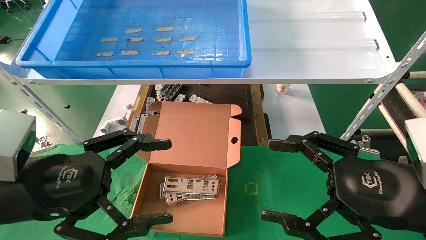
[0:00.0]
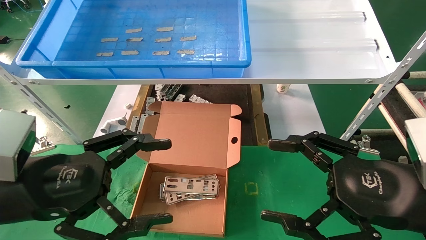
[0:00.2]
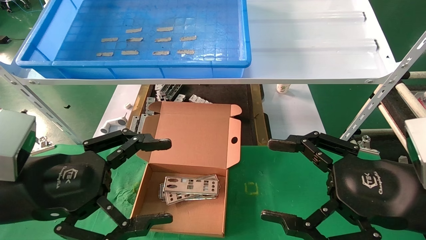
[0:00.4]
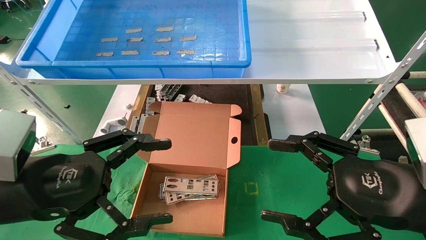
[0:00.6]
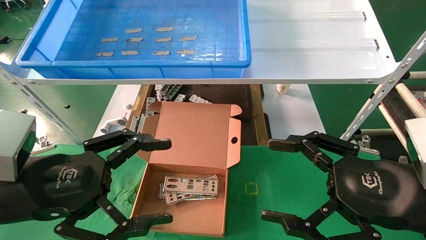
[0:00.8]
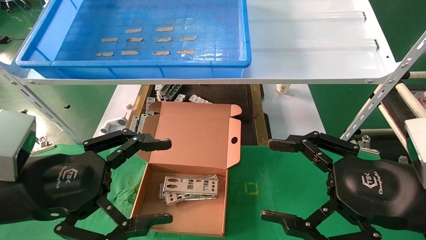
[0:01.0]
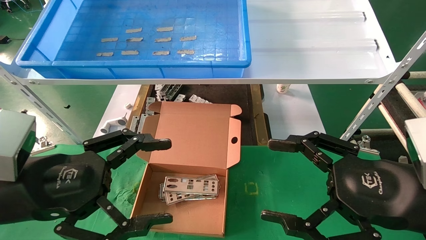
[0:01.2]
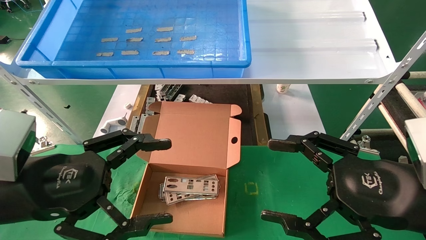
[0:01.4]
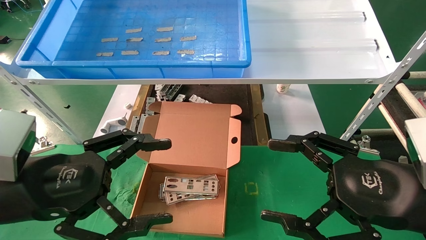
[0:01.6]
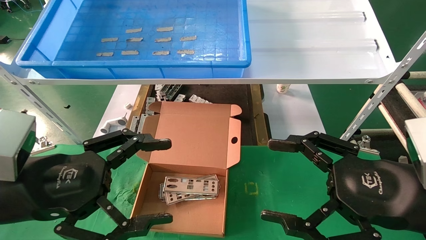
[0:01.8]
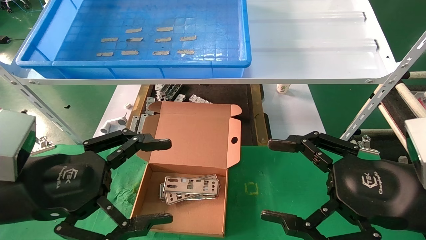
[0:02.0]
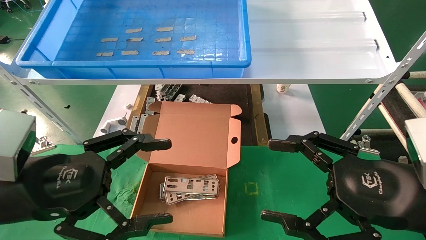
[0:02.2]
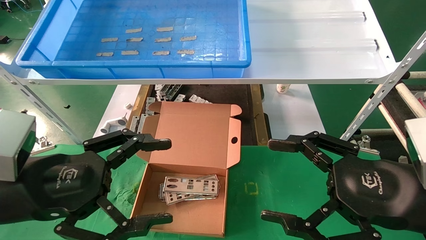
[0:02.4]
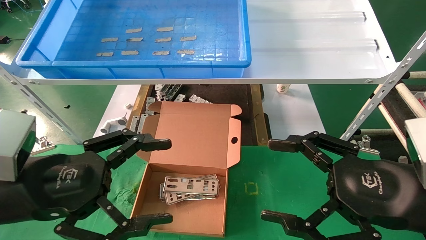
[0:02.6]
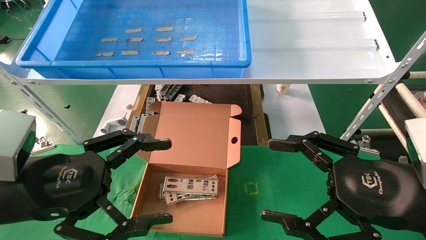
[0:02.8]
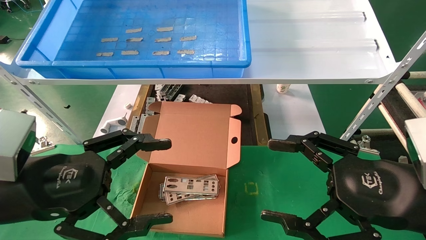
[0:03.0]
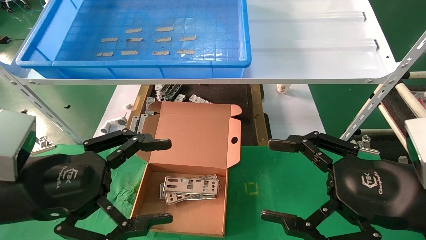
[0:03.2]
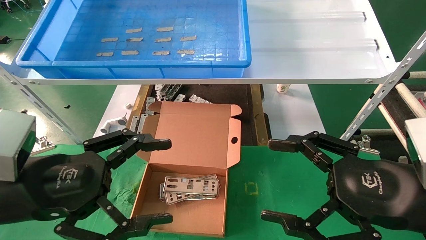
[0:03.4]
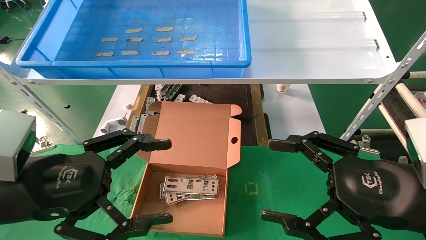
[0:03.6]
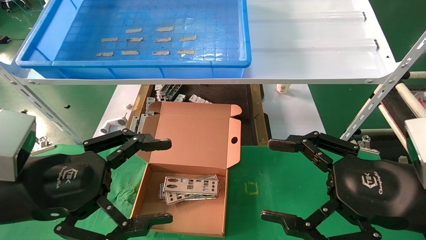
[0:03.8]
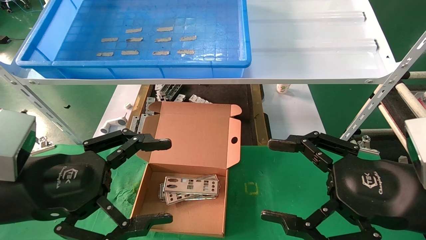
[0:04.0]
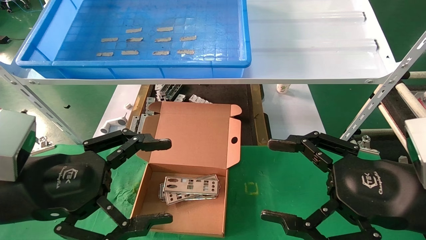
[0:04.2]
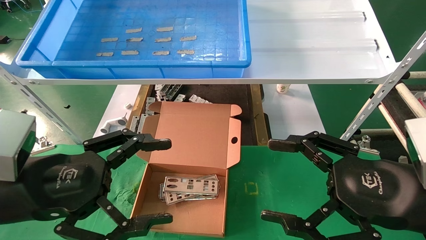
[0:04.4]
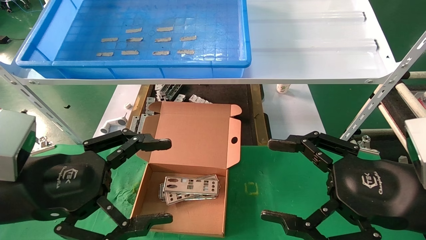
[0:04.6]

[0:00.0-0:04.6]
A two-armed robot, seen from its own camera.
Task of the whole recording: pick up the parts on the tray and put them in the cardboard box.
0:00.0 to 0:04.6: Both grippers stay about where they are.

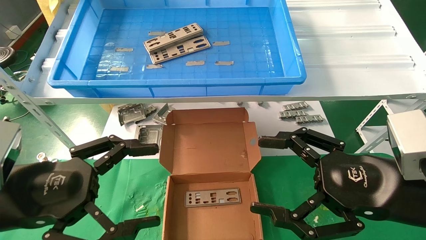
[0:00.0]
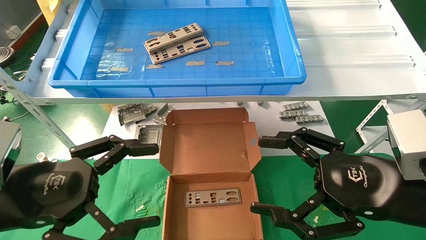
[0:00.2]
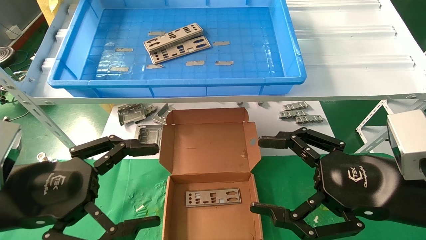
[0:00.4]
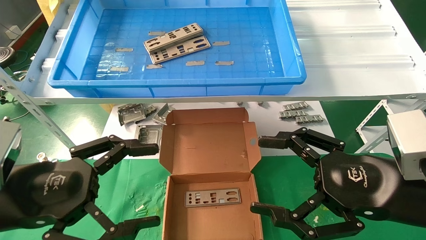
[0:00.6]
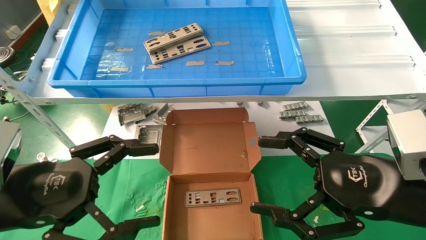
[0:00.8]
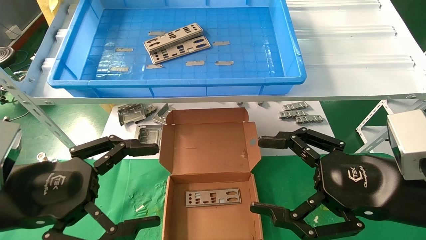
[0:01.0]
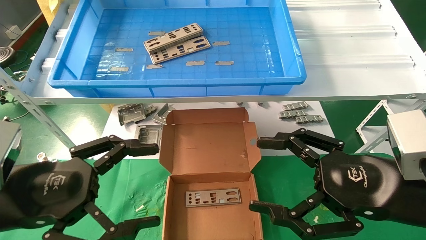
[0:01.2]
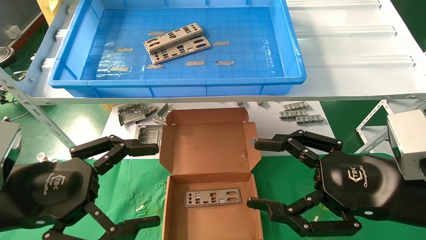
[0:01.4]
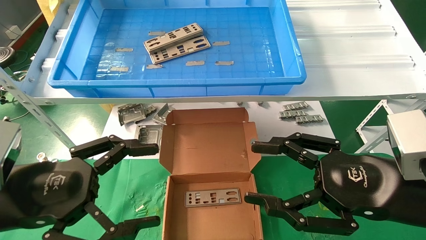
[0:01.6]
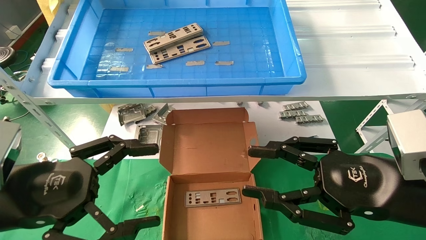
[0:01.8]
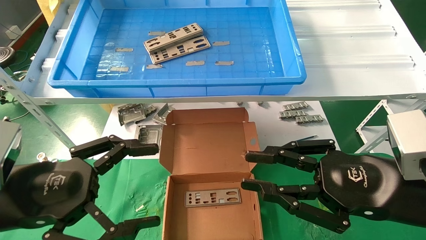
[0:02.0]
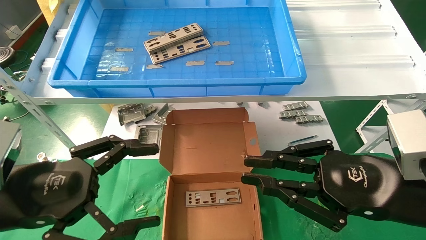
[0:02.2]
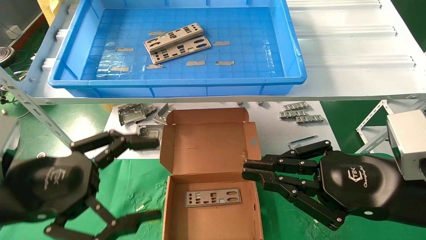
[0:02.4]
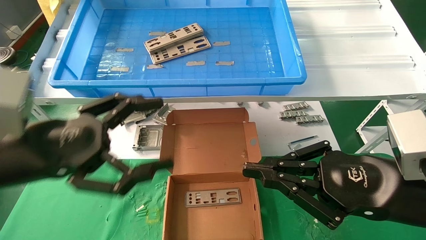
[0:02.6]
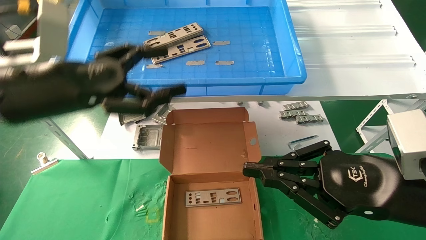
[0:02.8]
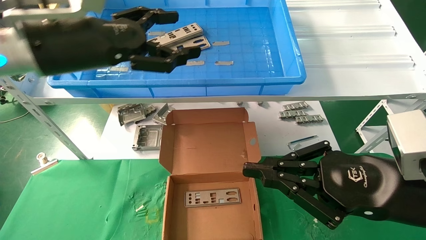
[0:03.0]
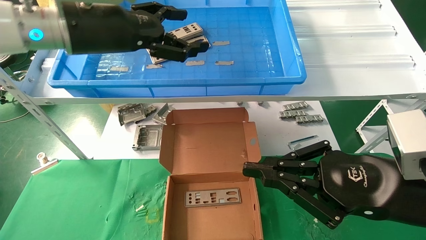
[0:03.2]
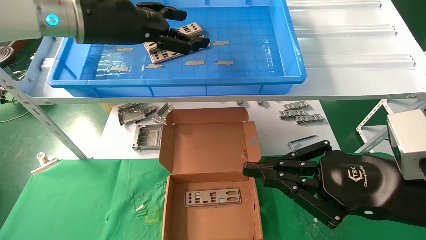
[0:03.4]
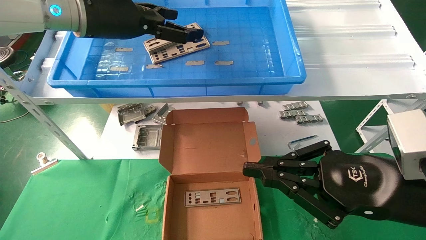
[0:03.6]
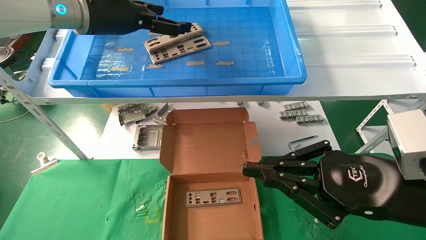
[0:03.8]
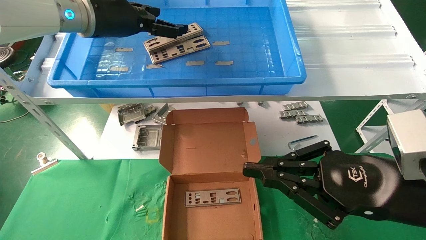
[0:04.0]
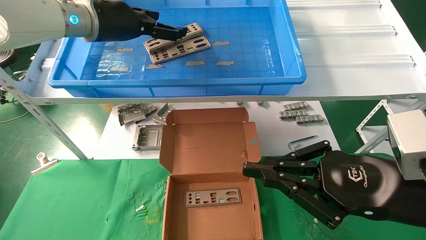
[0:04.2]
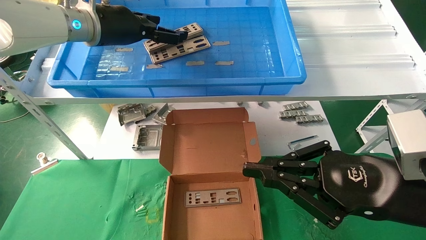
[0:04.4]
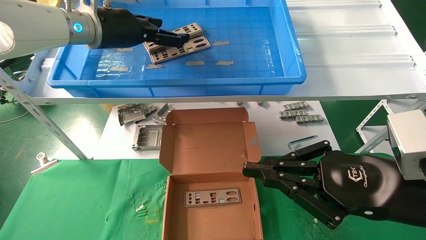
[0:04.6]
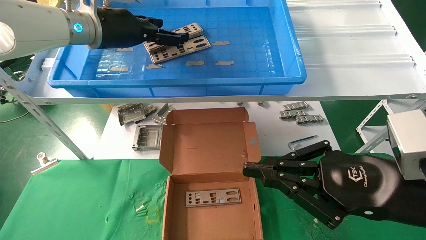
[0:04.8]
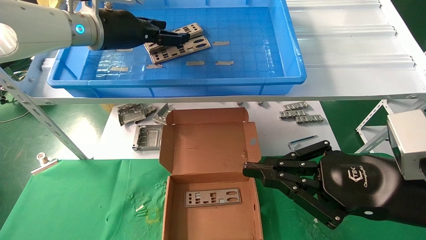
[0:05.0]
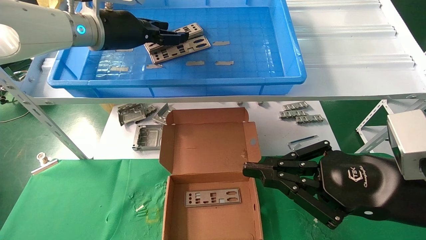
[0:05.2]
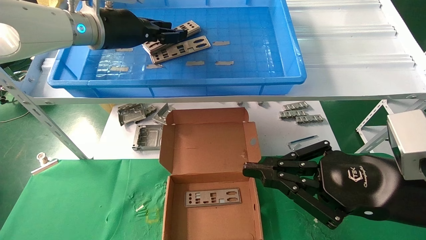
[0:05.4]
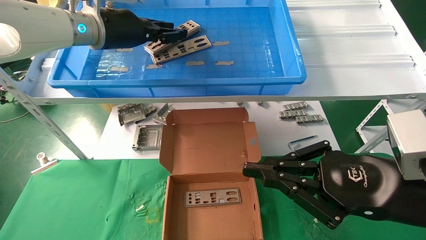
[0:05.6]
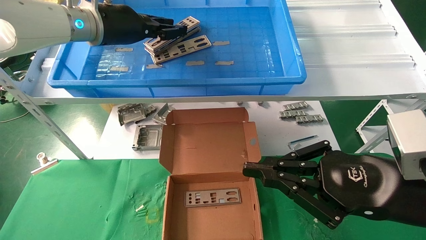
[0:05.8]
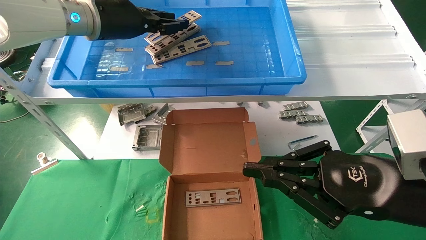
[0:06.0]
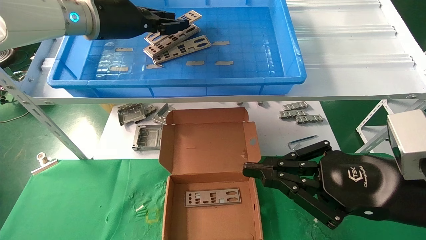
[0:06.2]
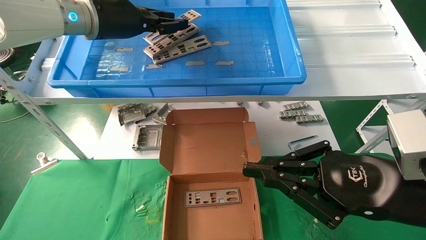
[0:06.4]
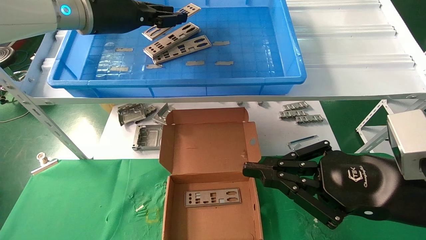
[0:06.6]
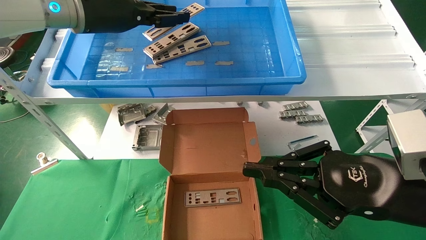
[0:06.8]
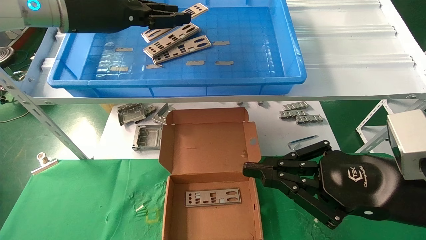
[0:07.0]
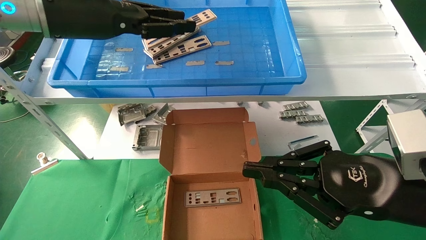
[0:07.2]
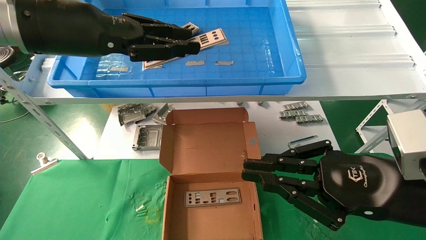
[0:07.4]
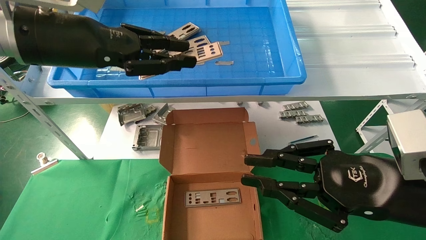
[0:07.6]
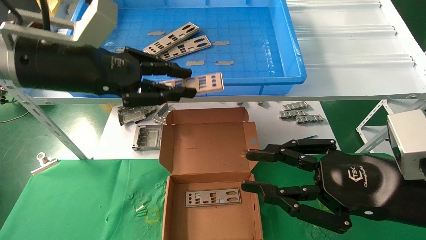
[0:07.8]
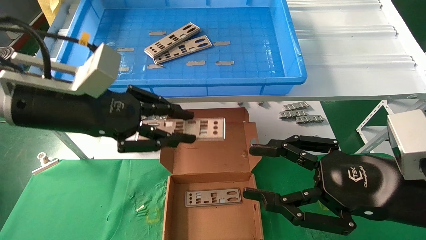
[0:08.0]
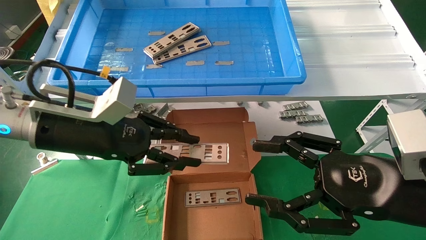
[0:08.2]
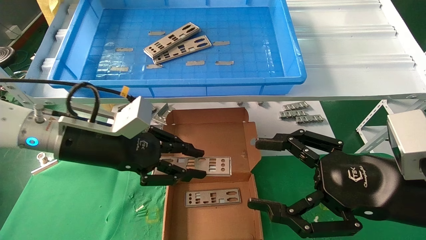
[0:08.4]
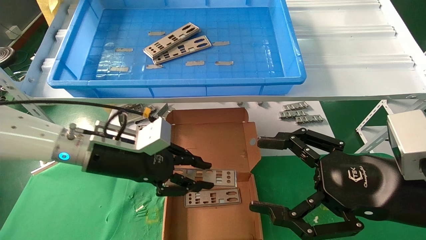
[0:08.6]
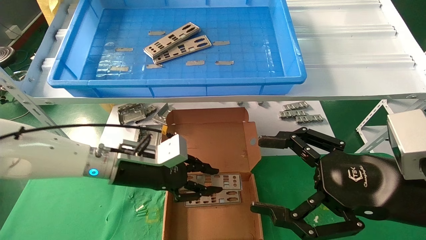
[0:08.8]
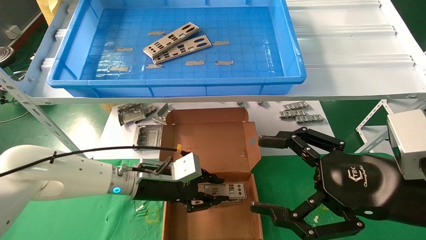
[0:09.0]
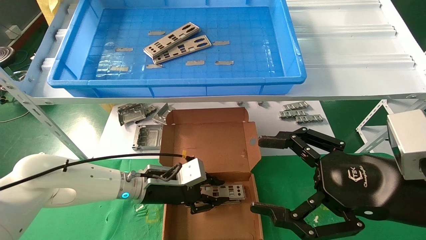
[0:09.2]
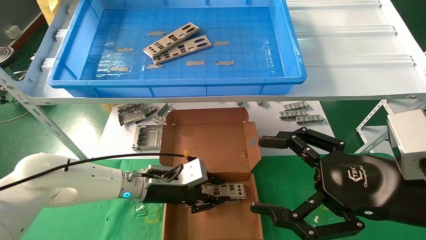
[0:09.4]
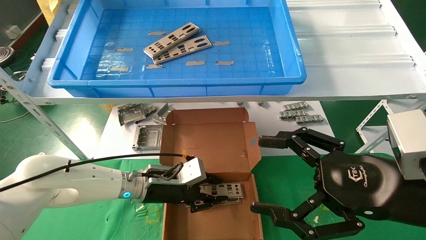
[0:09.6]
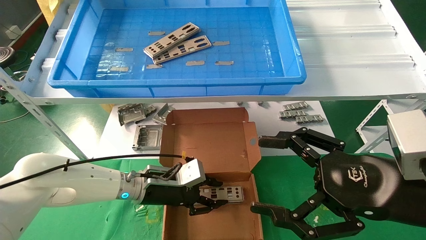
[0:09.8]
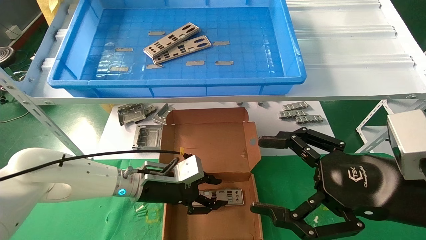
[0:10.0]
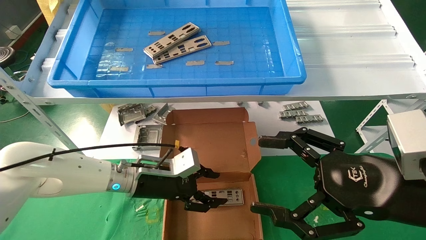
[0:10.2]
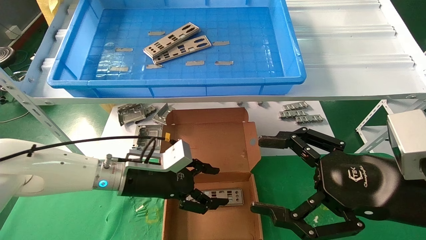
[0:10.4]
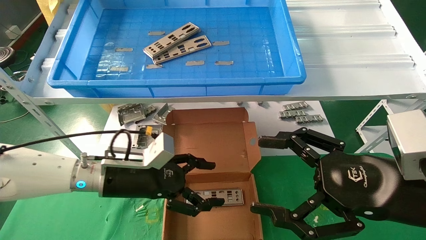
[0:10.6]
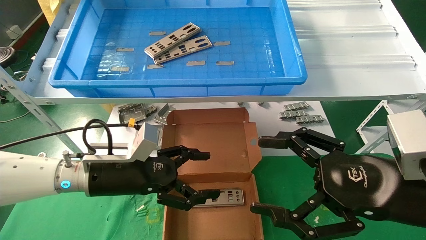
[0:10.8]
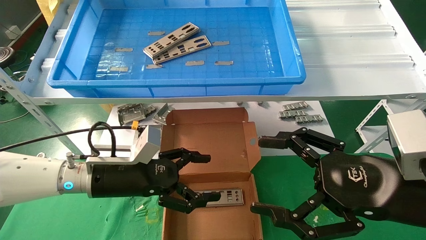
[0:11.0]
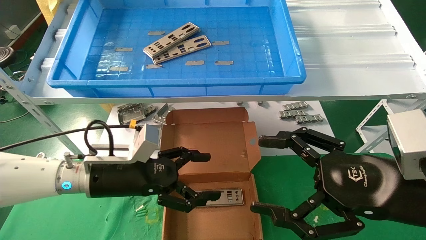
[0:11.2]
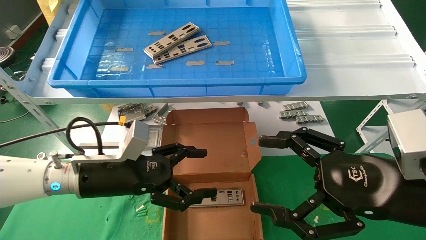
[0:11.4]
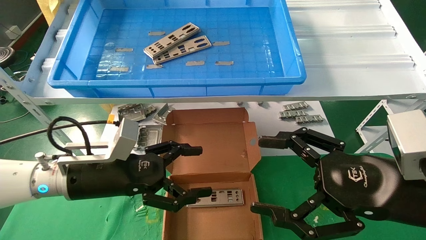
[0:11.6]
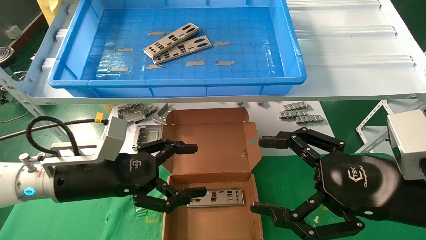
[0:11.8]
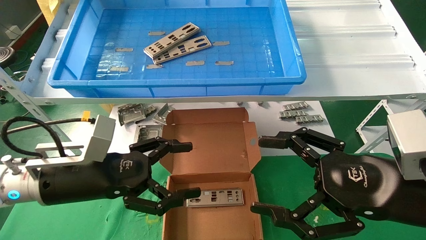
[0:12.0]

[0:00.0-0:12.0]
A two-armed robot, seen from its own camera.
Task of the whole recording: pick up the parts on the tray and put them in the cardboard box.
Step, 0:02.8 to 0:05.6: Pick up the IO bracket from the container box.
Step, 0:05.8 to 0:09.8: Place the IO bracket into the ingredient slot.
0:00.0 to 0:01.6: Both grippers stay put.
0:01.6 to 0:03.0: The left gripper goes about 20 cm upward and forward; the right gripper closes its fingers.
0:03.0 to 0:04.4: The left gripper travels forward by some 10 cm.
0:04.4 to 0:06.0: The left gripper closes its fingers.
0:06.0 to 0:07.6: The left gripper goes some 10 cm backward.
0:07.6 to 0:09.0: The left gripper moves downward, about 25 cm; the right gripper opens its fingers.
0:09.0 to 0:10.4: The left gripper opens its fingers.
0:10.4 to 0:12.0: The left gripper goes some 10 cm backward, to the left and upward, and opens up.
